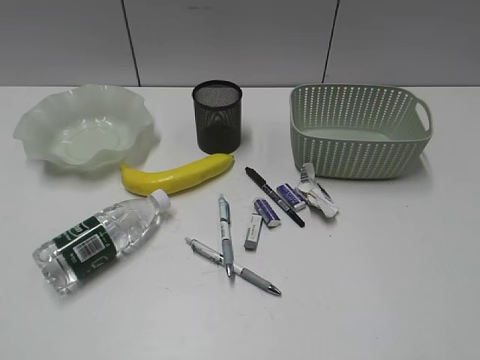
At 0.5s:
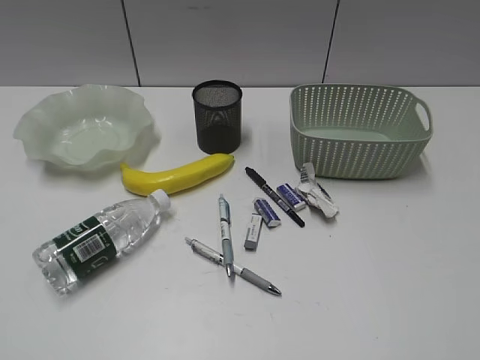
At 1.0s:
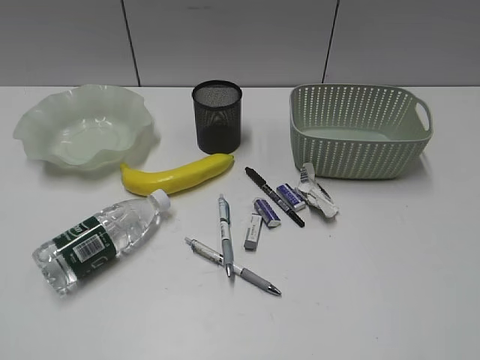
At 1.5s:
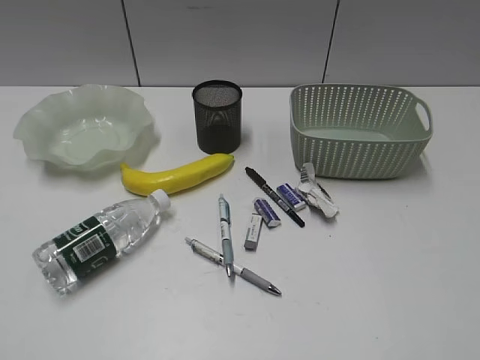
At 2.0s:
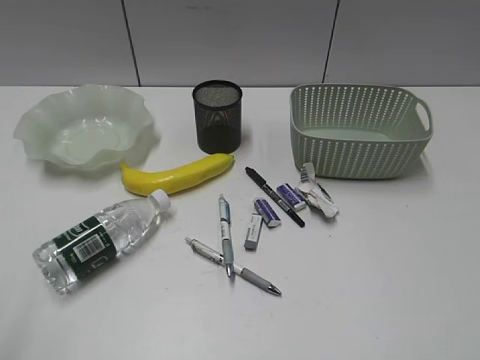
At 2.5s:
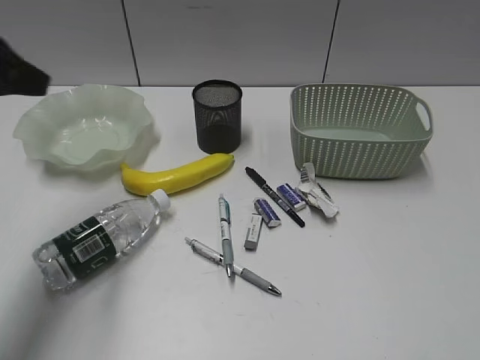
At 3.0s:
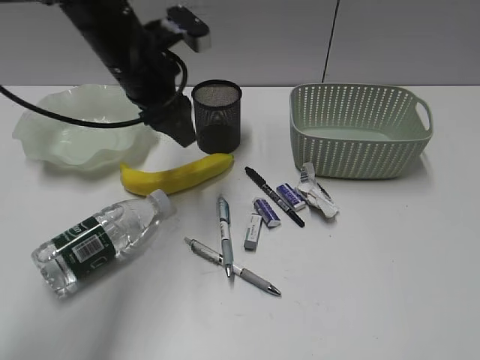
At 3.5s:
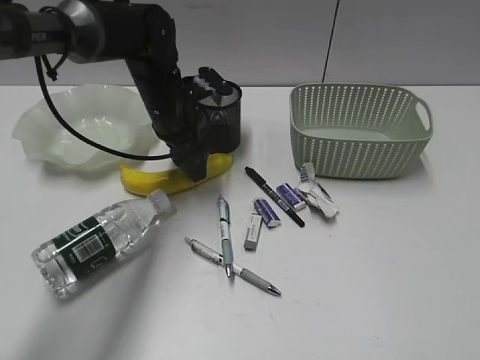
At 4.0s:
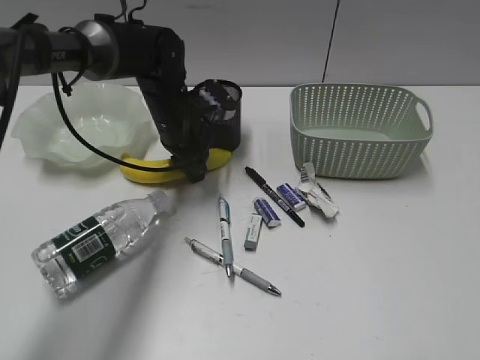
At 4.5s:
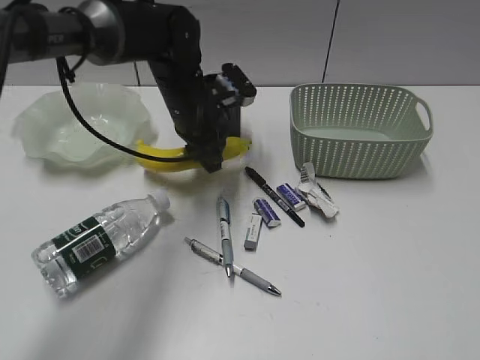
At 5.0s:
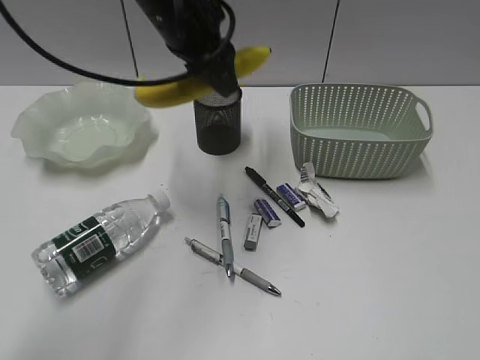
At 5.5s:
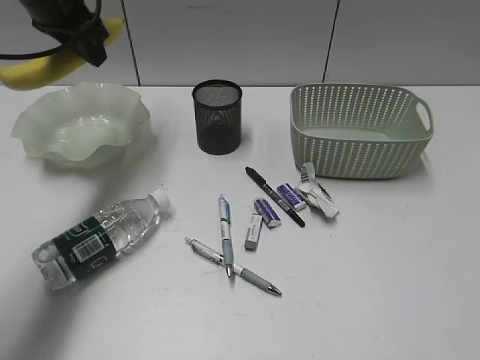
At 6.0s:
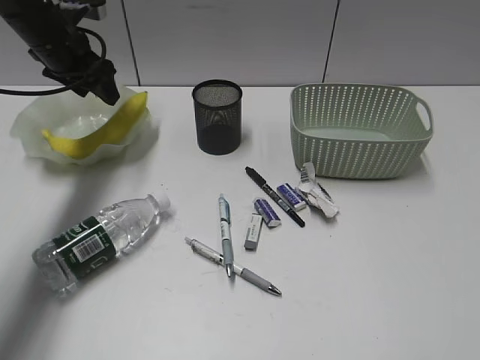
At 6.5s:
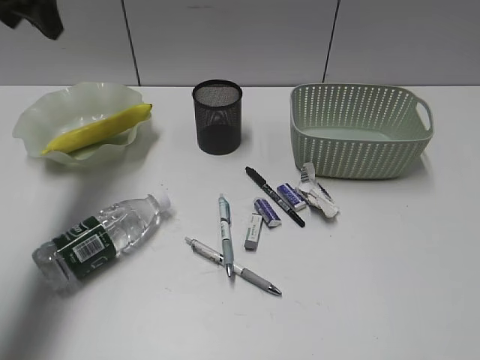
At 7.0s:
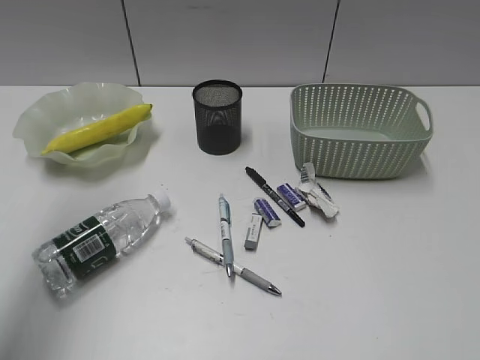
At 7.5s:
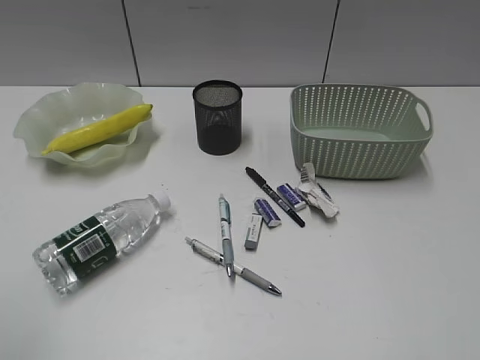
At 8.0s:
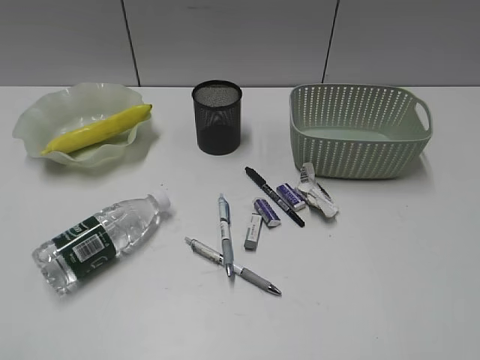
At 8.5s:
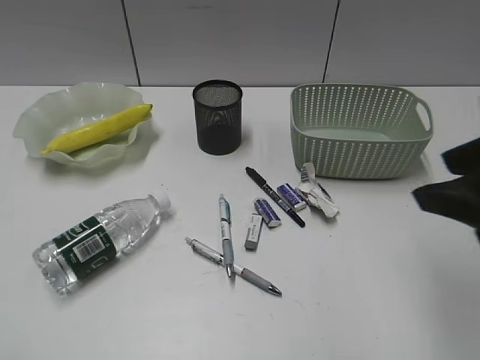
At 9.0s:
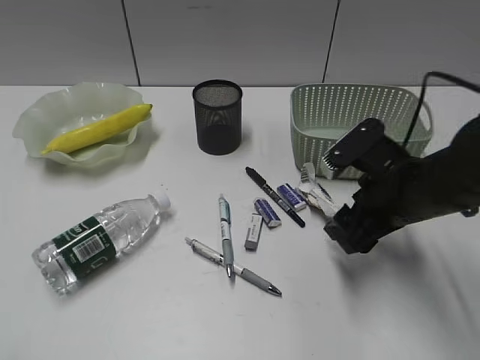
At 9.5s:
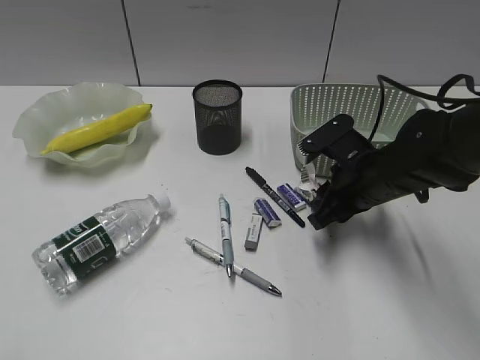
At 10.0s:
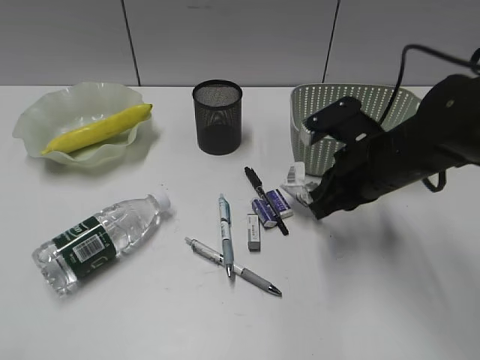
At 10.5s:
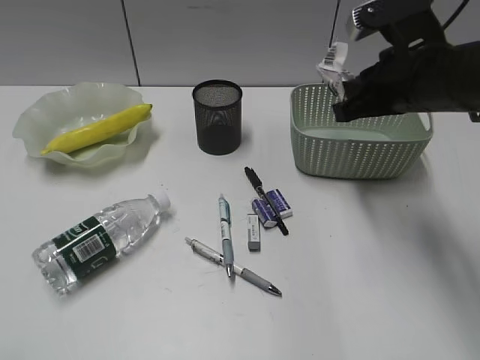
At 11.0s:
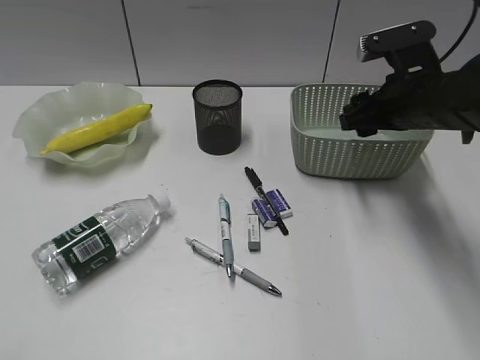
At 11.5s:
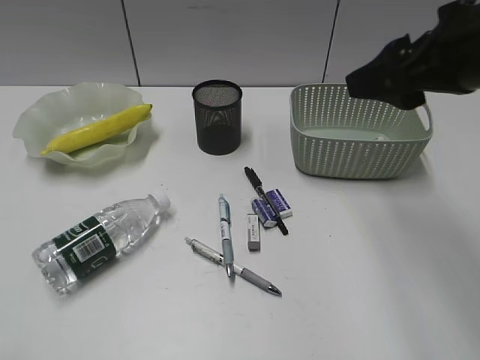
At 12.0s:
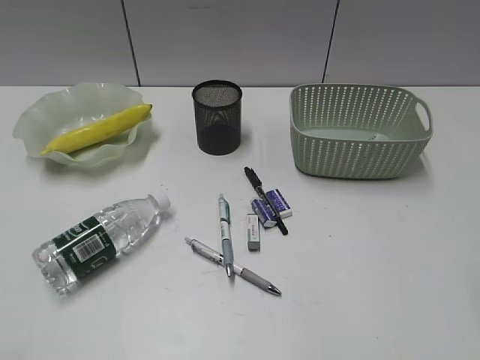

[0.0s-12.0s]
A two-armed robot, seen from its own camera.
Step, 2.0s to 4.0s: Grasp the banana with left gripper.
Step, 4.5s to 6.0s: Place the banana in the plate with left gripper.
Step, 6.5s to 9.5s: Grasp the waste paper with right gripper.
Step, 10.0s to 11.0s: Place the waste paper in the basket with right gripper.
2.0s to 4.0s: The left gripper heads forward, to the right and downward, covering some 50 cm, and opens, then closes once more.
4.0s to 6.0s: The left gripper moves to the left and upward, approximately 20 cm.
6.0s to 8.0s: The left gripper is displaced backward by approximately 50 cm.
8.0s to 10.0s: The right gripper moves forward, downward and to the left, about 35 cm, and closes.
10.0s to 12.0s: The right gripper heads upward, backward and to the right, covering roughly 30 cm, and opens its fingers.

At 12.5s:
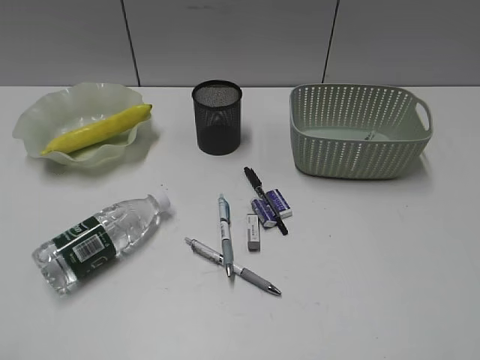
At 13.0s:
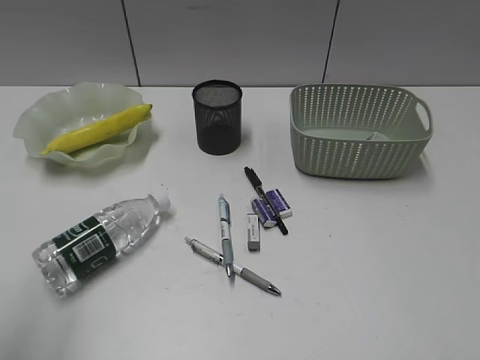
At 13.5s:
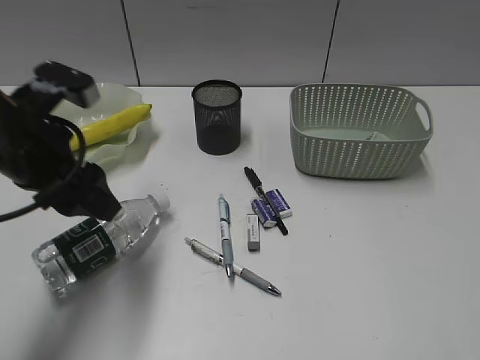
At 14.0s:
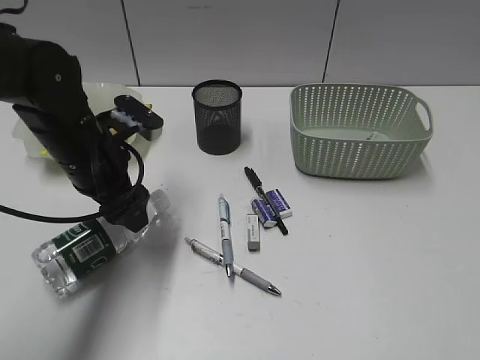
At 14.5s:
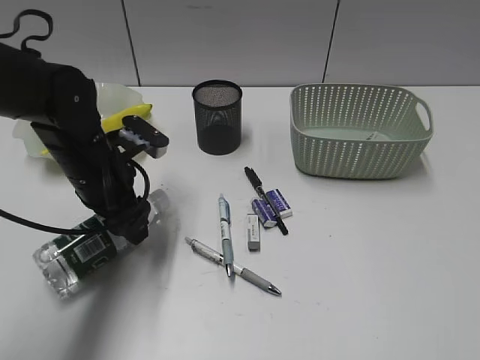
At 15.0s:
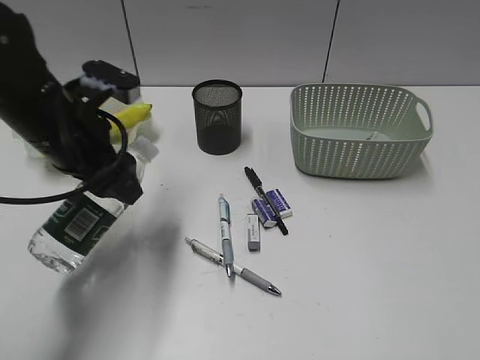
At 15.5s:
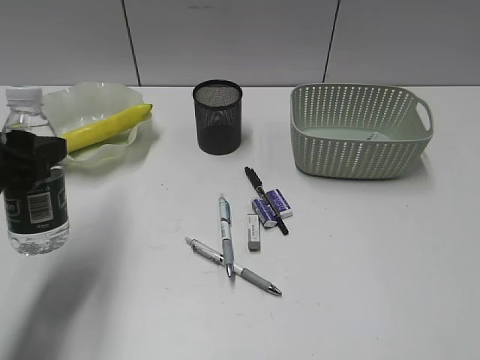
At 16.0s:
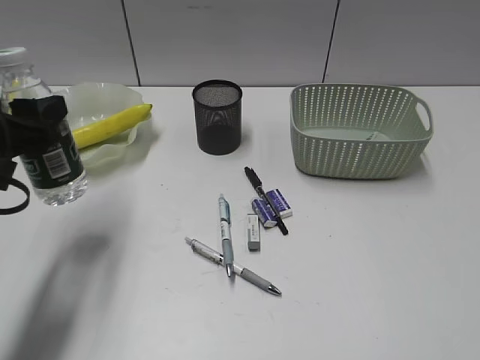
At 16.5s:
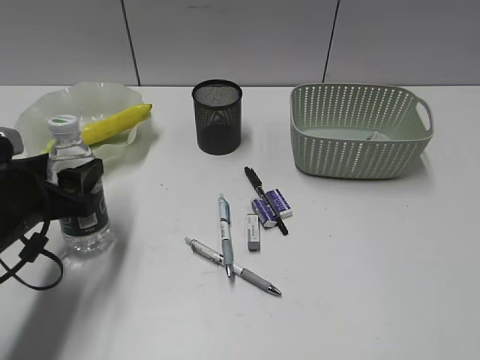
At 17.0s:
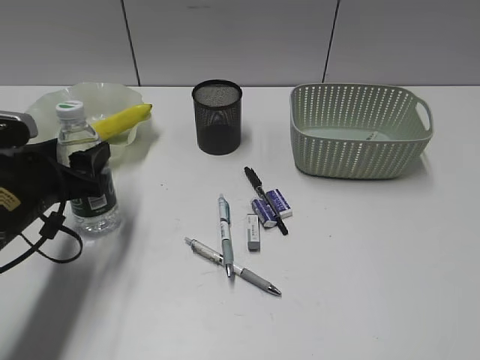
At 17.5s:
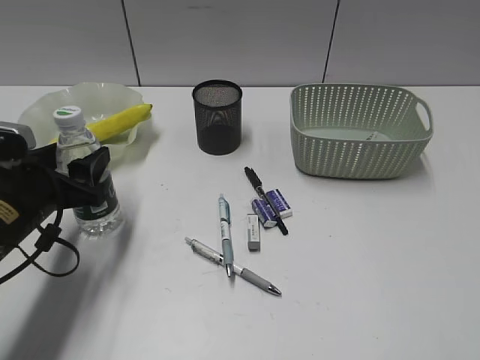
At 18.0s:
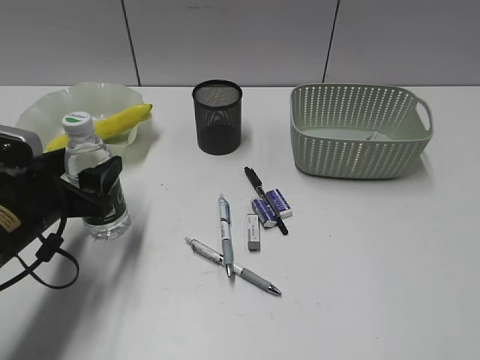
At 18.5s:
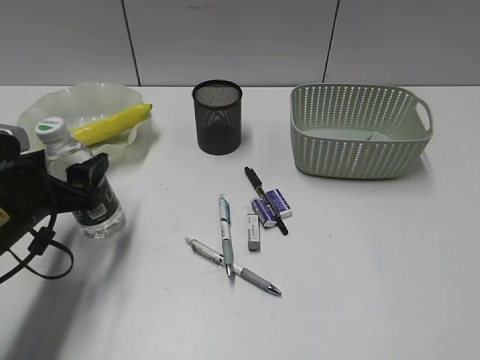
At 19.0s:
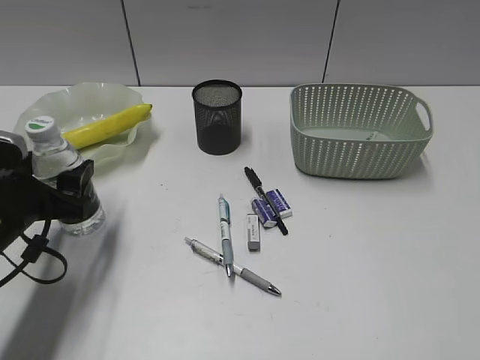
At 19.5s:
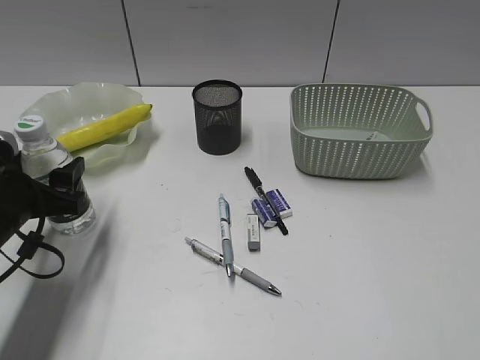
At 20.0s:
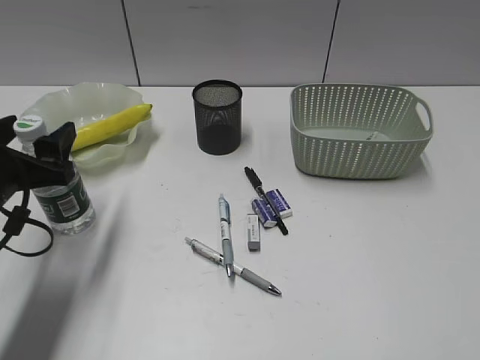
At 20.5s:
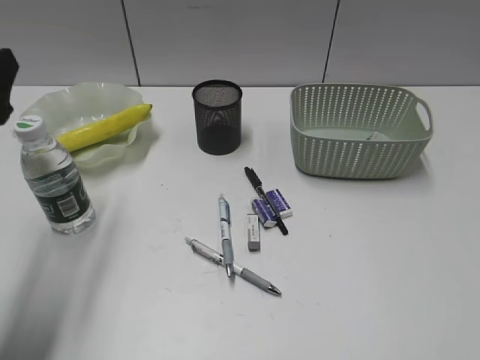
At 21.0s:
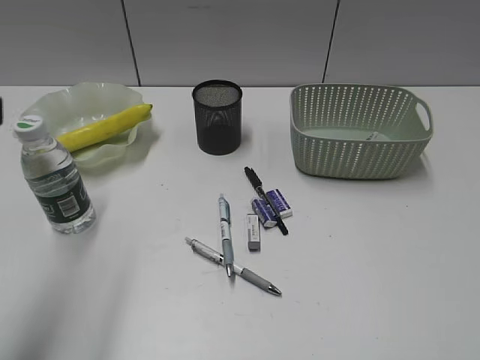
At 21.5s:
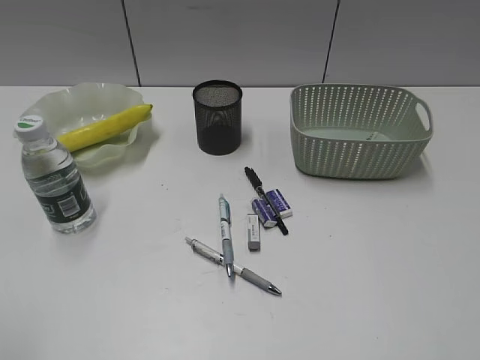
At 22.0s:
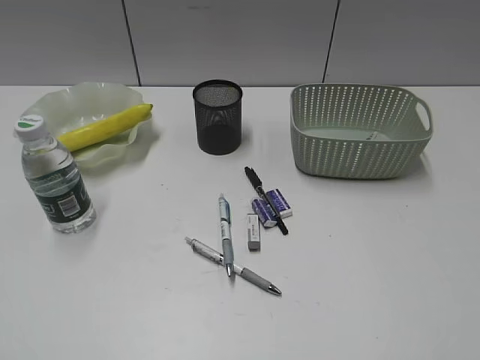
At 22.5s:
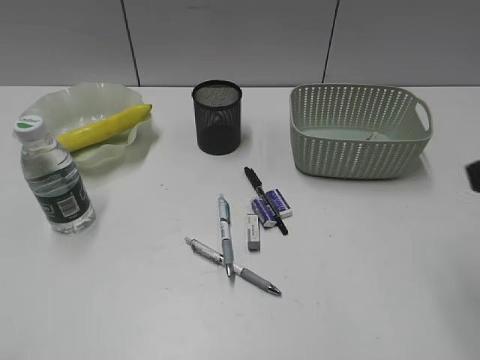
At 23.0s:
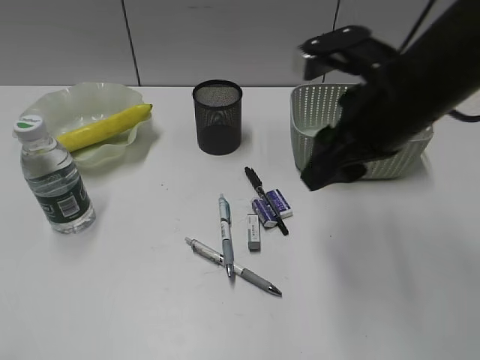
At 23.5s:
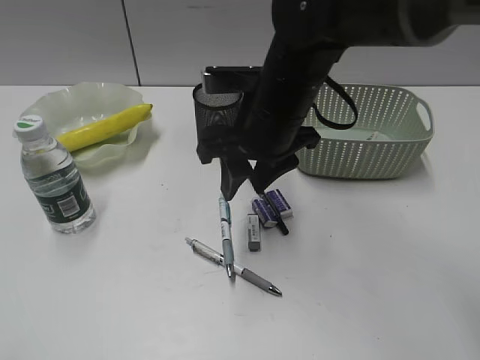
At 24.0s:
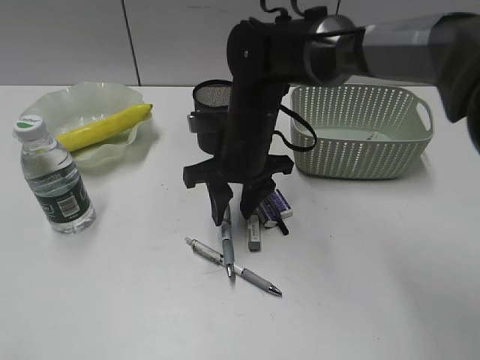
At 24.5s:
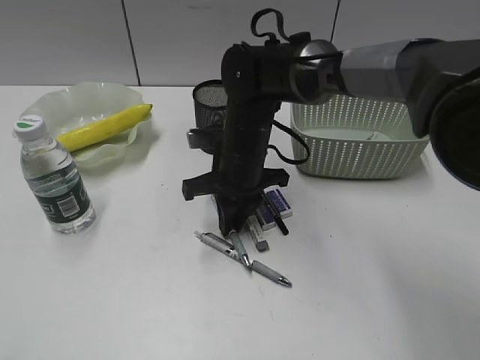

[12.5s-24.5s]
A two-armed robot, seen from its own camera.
Step, 14.5s to 20.0s: Stand the bottle with left gripper.
Step, 20.5s to 24.5s: Grasp the blue pen with right gripper.
12.5s to 14.5s: The left gripper goes about 40 cm forward, to the right and downward.
14.5s to 16.5s: The left gripper travels backward and to the left by some 10 cm.
16.5s to 18.5s: The grippers move only a little.
18.5s to 20.5s: The left gripper is displaced upward by roughly 10 cm.
20.5s to 22.5s: The right gripper heads forward and to the left, covering about 15 cm, while the left gripper shifts approximately 20 cm backward.
22.5s to 24.5s: The right gripper shifts roughly 40 cm to the left, forward and downward, and closes up.

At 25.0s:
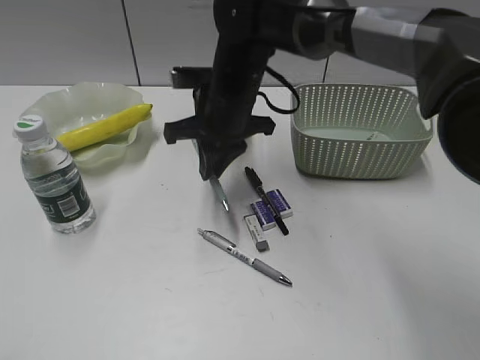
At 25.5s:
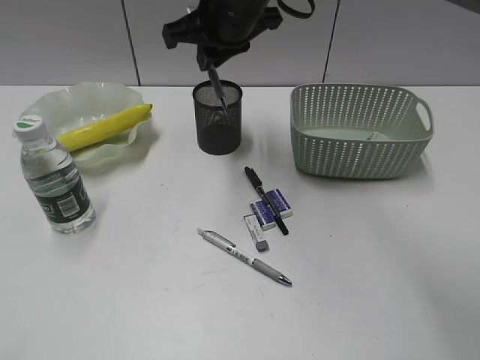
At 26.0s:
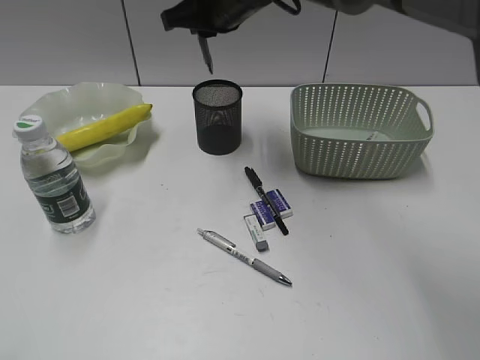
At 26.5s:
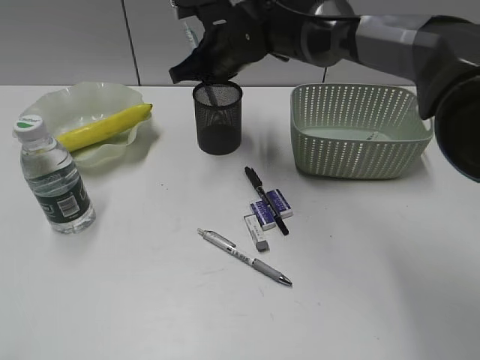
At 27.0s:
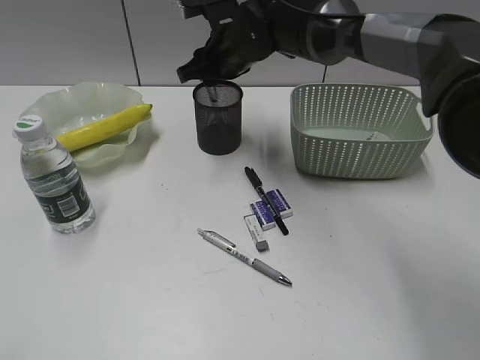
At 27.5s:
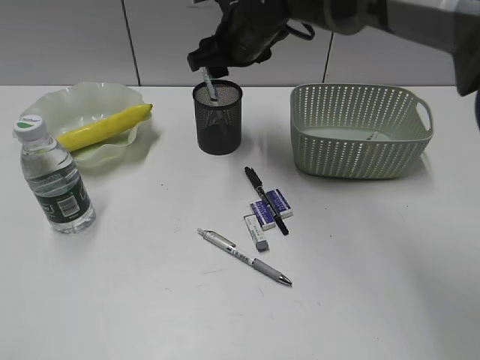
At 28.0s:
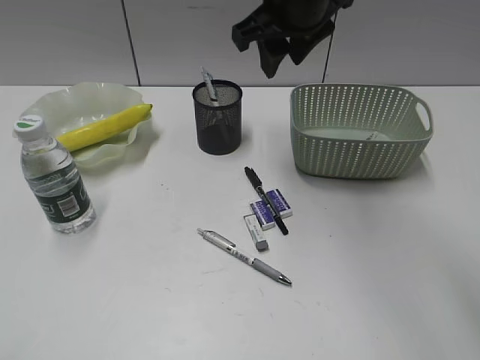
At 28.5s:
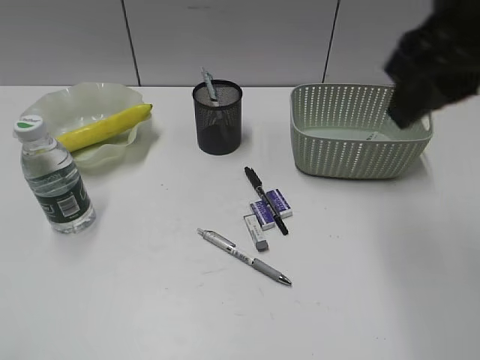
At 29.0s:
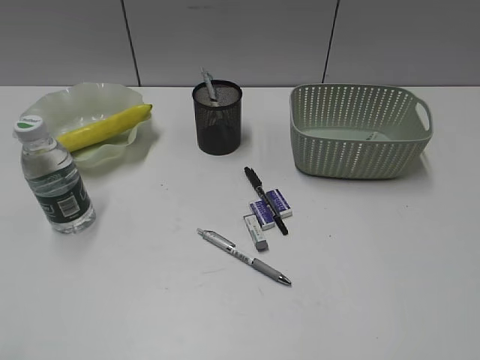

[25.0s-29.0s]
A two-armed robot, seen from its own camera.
Step, 25.0s to 27.0s: Place the blue pen in pen holder with right gripper.
25.0s to 27.0s: The right gripper moves forward, about 10 cm, goes upward and returns, approximately 10 cm each way, and opens up.
27.0s to 29.0s: The right gripper goes some 50 cm backward and to the right, and opens, then closes once more.
